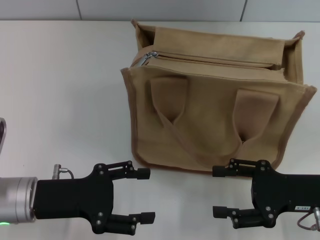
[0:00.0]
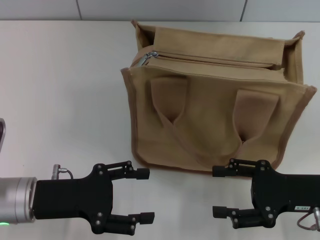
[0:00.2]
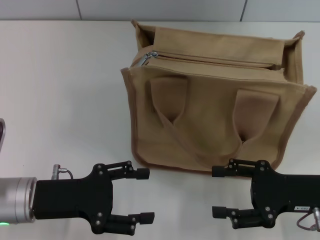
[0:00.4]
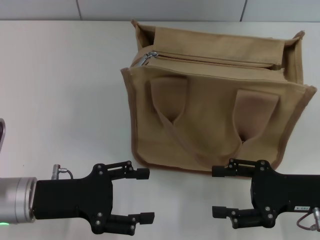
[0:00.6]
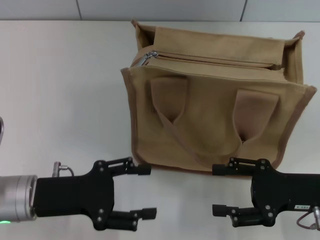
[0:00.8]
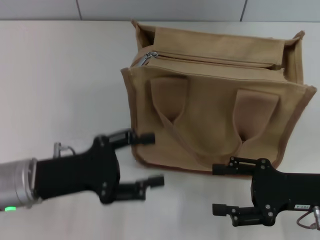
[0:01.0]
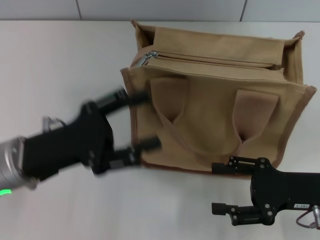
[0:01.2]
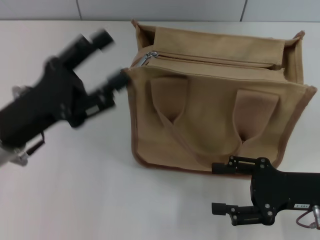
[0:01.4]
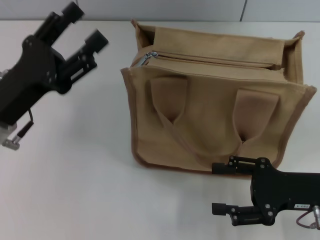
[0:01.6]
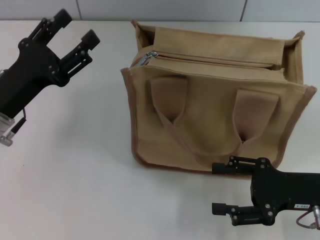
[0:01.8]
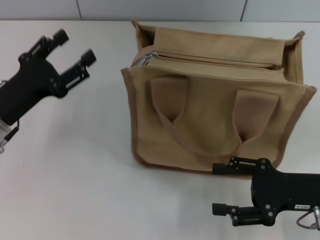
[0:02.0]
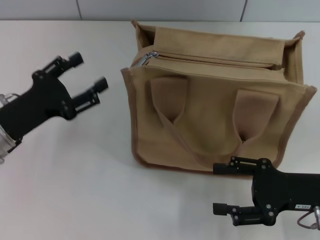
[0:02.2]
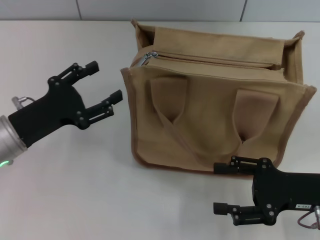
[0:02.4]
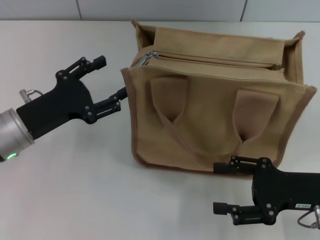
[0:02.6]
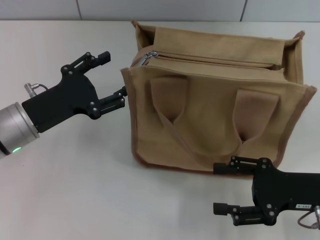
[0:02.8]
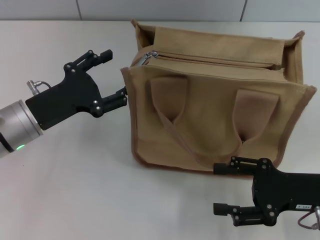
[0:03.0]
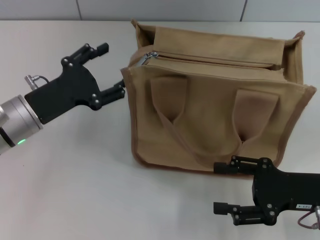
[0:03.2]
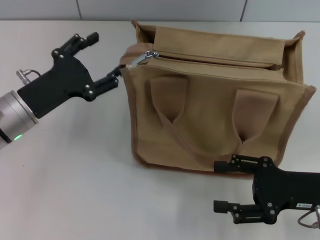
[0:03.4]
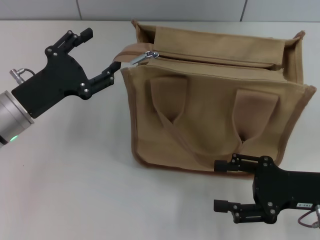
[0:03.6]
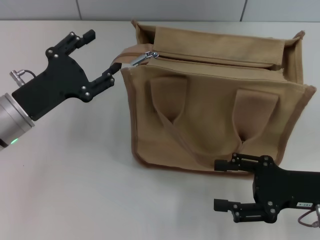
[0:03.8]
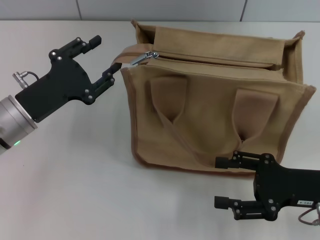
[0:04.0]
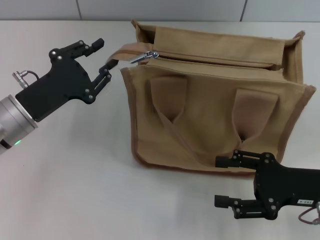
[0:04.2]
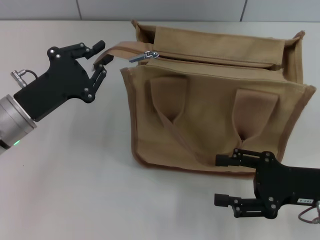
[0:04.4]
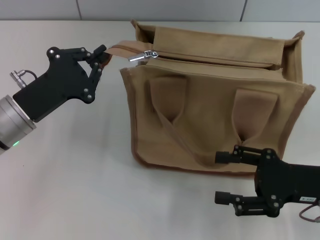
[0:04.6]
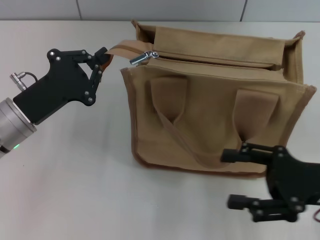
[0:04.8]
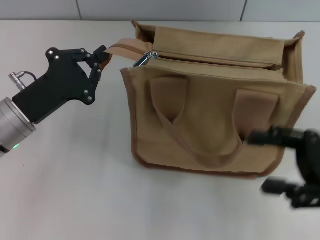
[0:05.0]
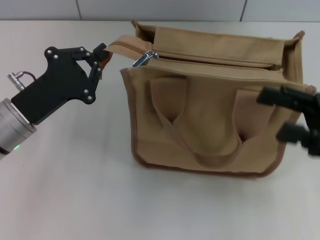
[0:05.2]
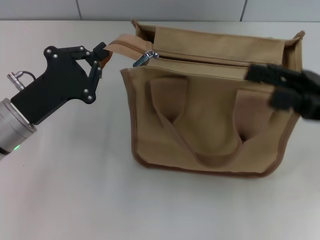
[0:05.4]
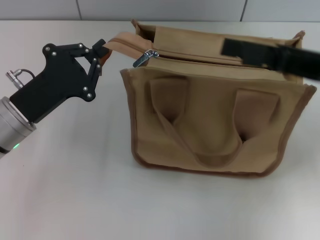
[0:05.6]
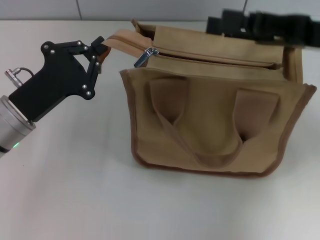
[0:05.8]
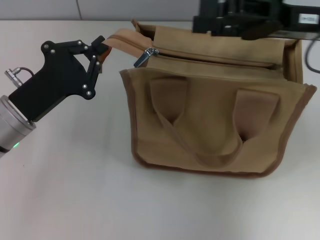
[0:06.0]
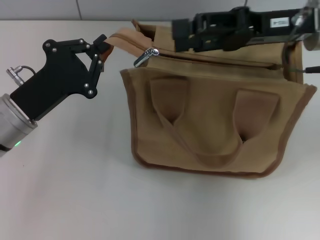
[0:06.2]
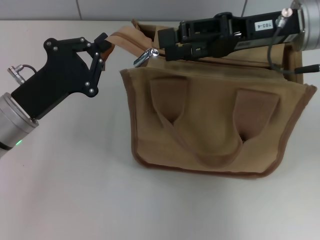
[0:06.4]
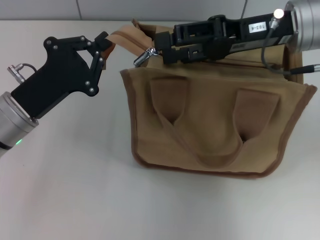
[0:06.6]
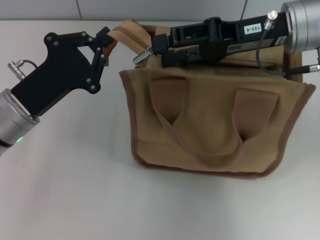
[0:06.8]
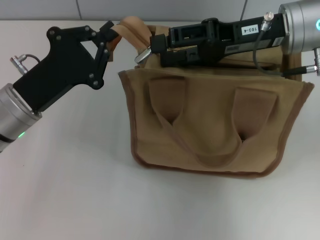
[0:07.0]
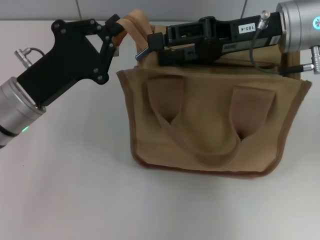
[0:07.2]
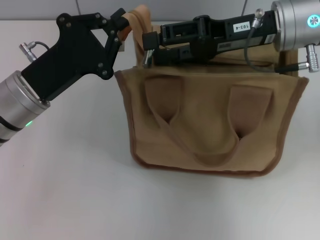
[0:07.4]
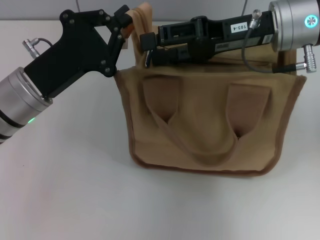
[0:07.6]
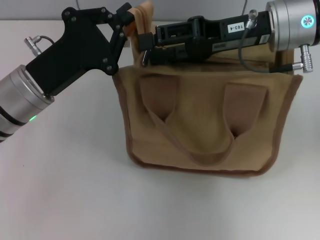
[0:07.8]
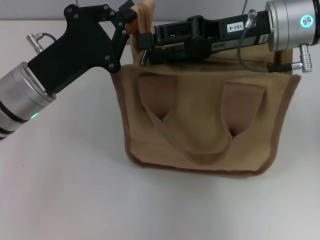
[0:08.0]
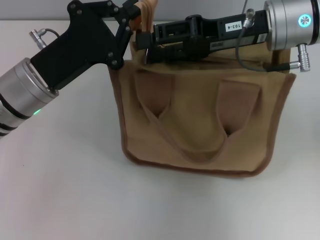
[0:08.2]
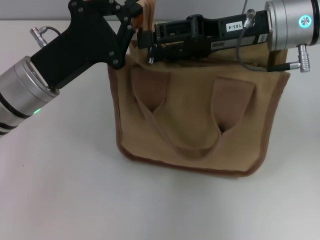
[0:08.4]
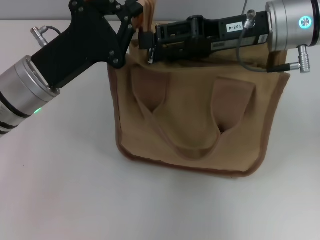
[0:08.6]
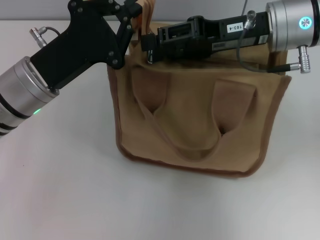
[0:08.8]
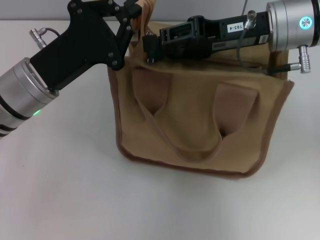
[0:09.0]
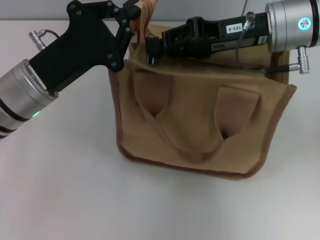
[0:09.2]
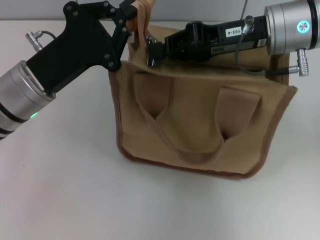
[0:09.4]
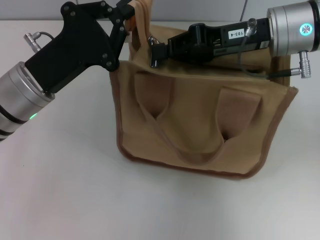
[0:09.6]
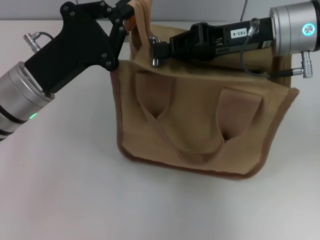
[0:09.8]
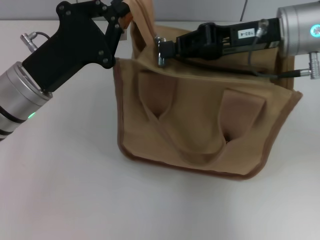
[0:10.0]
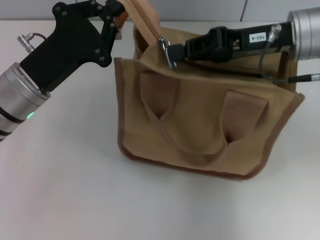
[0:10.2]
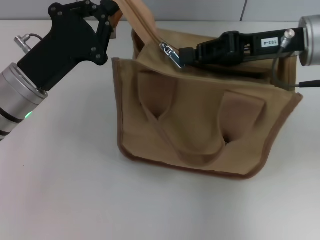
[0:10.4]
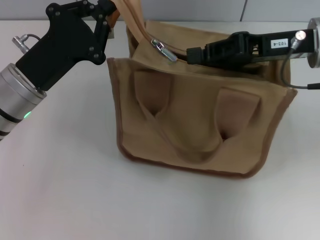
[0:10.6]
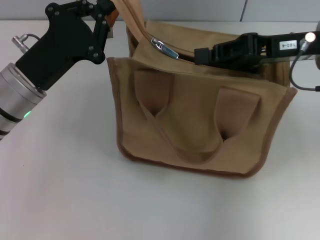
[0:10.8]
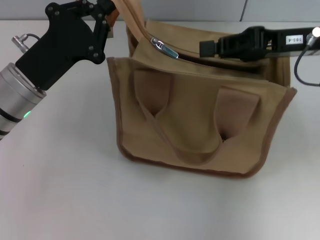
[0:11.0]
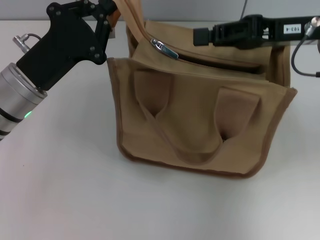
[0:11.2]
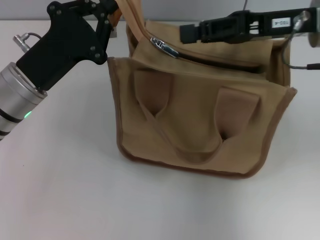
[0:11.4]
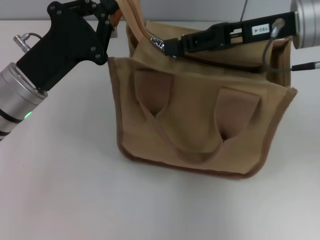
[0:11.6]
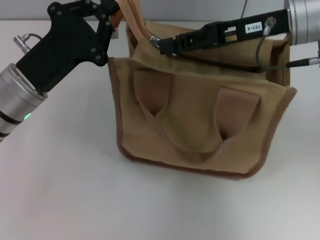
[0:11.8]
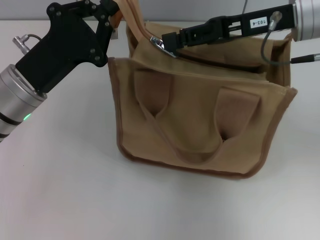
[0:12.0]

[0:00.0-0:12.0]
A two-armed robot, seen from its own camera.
0:00.0 to 0:01.6: The left gripper shifts by approximately 5 cm.
0:03.0 to 0:04.4: The left gripper closes up.
0:04.4 to 0:06.0: The right gripper travels upward and forward by about 20 cm; the left gripper closes its fingers.
0:06.0 to 0:07.6: The right gripper heads to the left, covering approximately 5 cm.
0:07.6 to 0:09.0: The grippers stay close to where they were, moving slightly.
0:09.0 to 0:10.4: The right gripper closes its fingers.
0:10.4 to 0:12.0: The right gripper opens up.

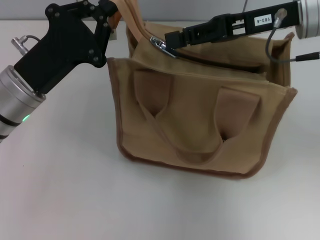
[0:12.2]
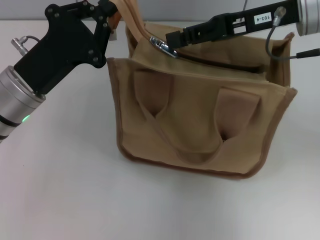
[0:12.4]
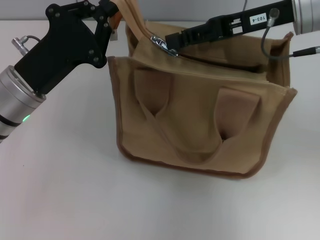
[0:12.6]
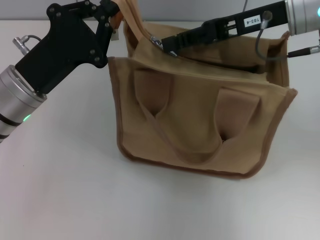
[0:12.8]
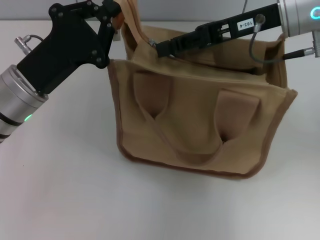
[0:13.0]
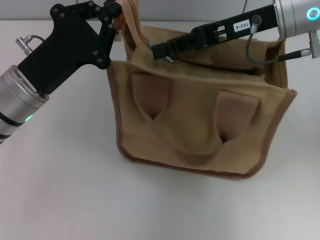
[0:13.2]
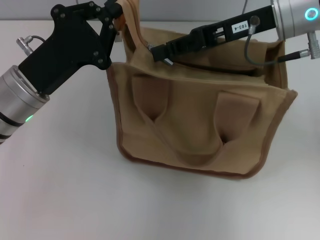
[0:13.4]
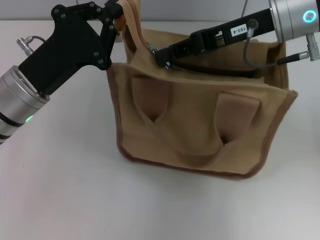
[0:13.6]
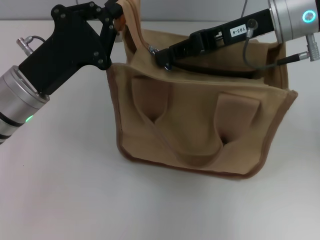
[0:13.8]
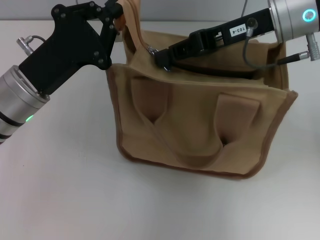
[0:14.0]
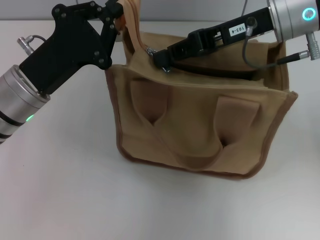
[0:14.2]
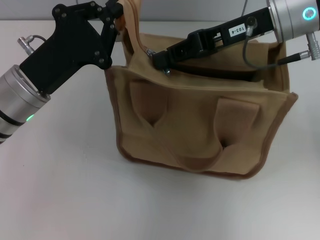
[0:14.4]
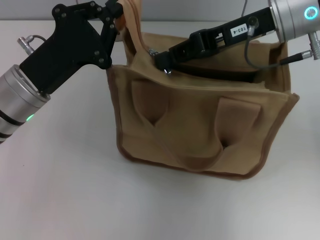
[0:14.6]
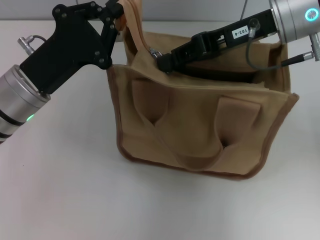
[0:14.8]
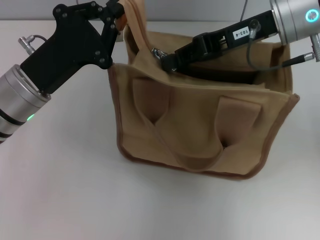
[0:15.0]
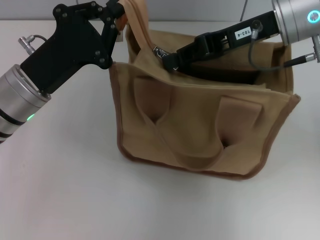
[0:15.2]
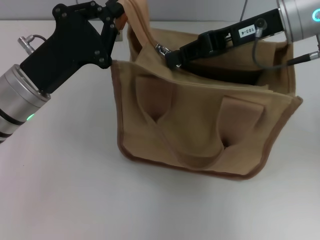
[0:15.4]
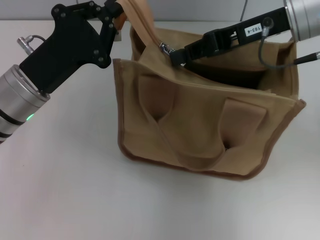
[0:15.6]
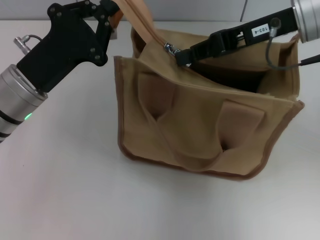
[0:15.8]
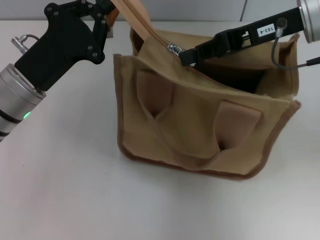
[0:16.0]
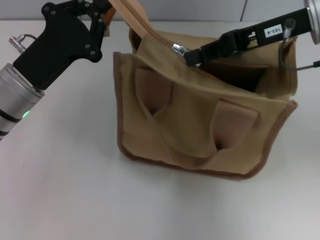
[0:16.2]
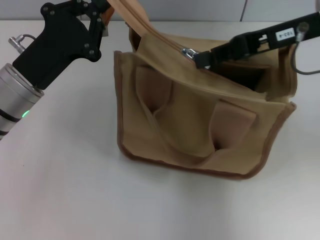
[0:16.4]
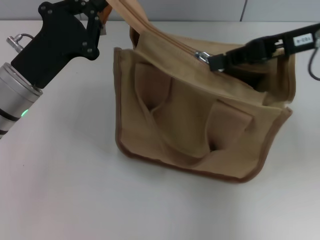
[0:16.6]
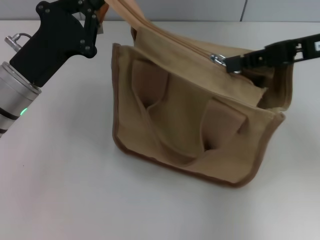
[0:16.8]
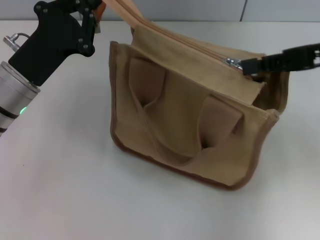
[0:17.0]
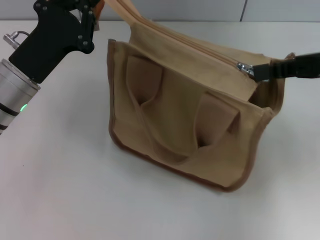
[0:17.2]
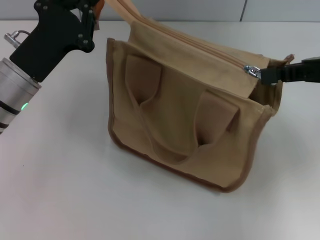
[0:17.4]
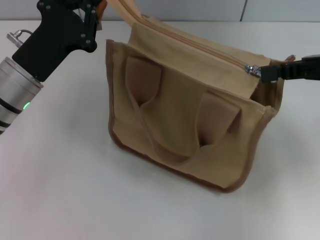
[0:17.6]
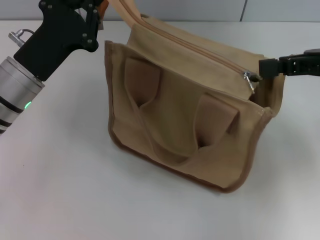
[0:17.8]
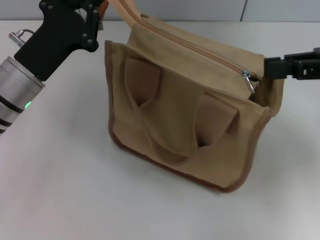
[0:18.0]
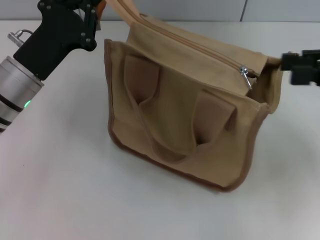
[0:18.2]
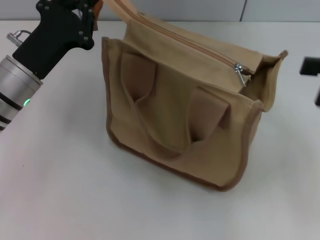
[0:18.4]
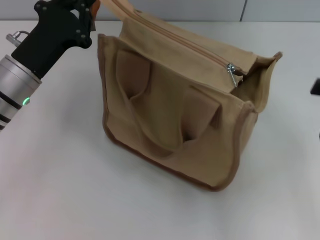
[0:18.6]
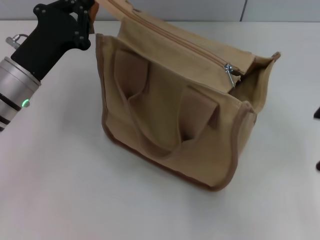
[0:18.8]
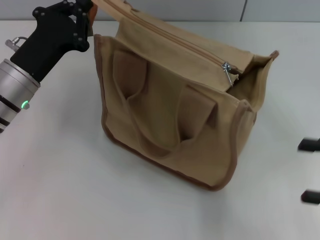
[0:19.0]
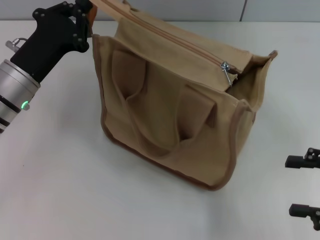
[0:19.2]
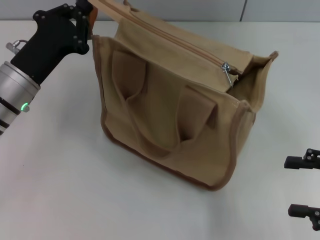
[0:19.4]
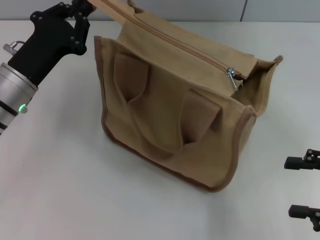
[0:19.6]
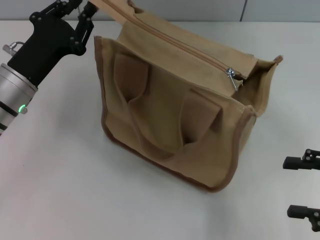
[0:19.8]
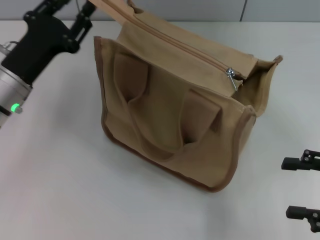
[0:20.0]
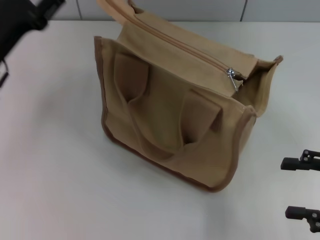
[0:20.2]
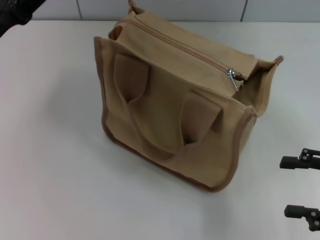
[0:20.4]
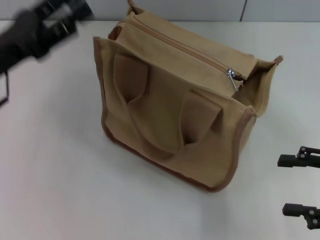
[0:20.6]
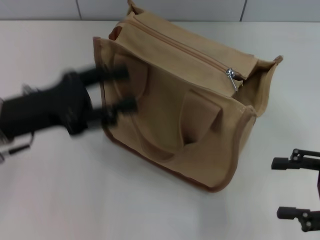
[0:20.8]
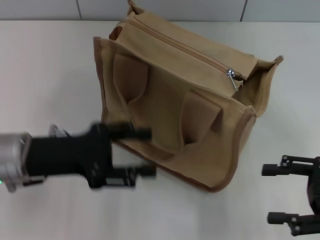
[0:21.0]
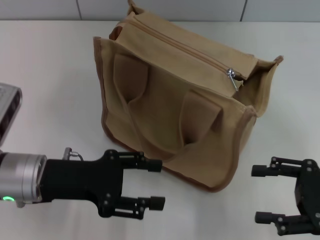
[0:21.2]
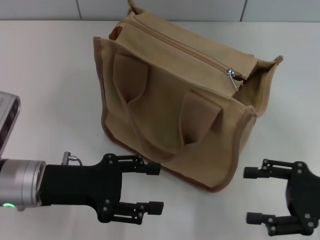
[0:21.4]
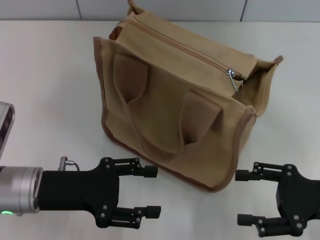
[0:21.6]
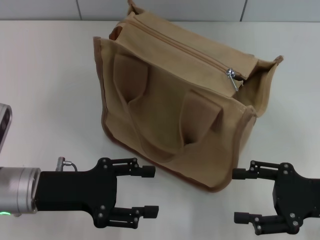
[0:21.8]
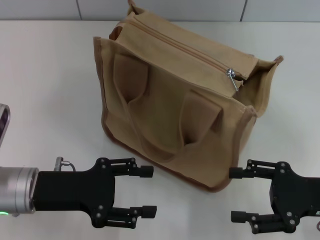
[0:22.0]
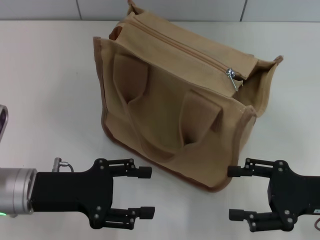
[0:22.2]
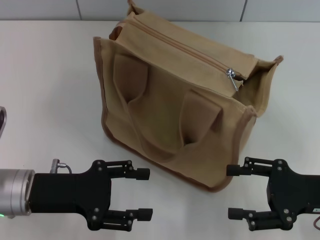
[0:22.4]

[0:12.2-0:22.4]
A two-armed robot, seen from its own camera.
Step, 0:12.2 to 0:17.8: Pull up the zipper with your right hand.
Step, 0:18.0 to 0:20.2: Grab the zipper with your left hand.
0:12.2 to 0:15.2: The grippers stay close to where they were, moving slightly.
0:15.2 to 0:16.6: The right gripper heads to the right, covering roughly 5 cm.
0:16.6 to 0:18.0: The right gripper heads to the right, covering roughly 5 cm.
0:18.0 to 0:19.4: The right gripper is displaced backward and downward by approximately 15 cm, and opens.
0:19.4 to 0:21.0: The left gripper shifts some 5 cm backward, and opens its fingers.
0:21.0 to 0:22.4: The right gripper moves some 5 cm.
